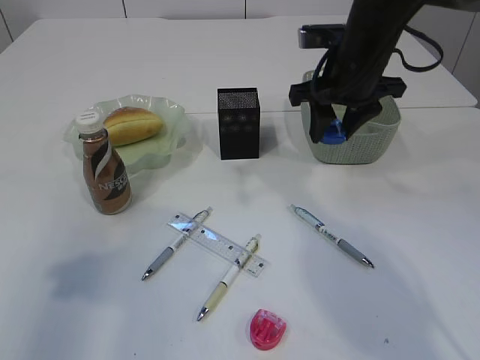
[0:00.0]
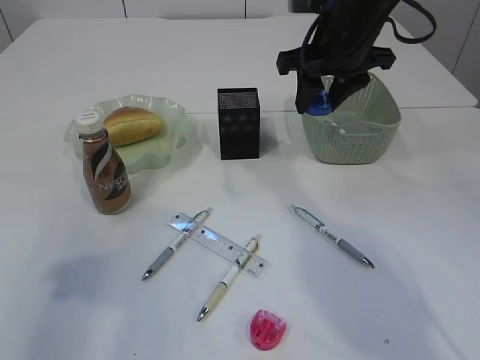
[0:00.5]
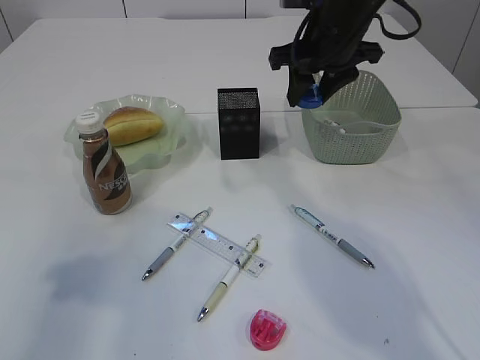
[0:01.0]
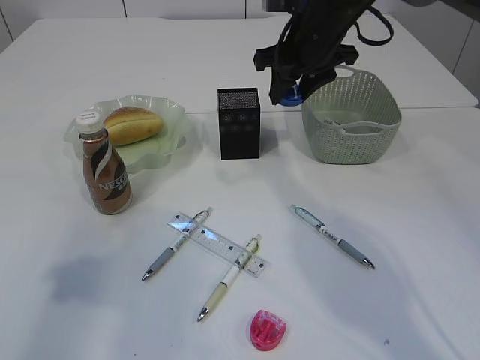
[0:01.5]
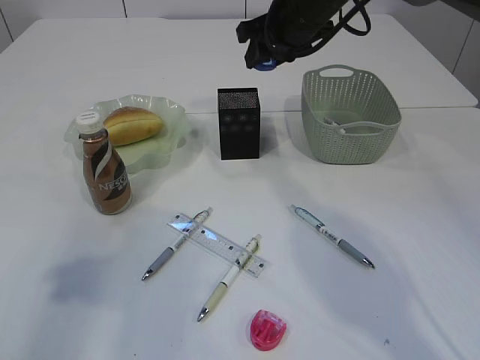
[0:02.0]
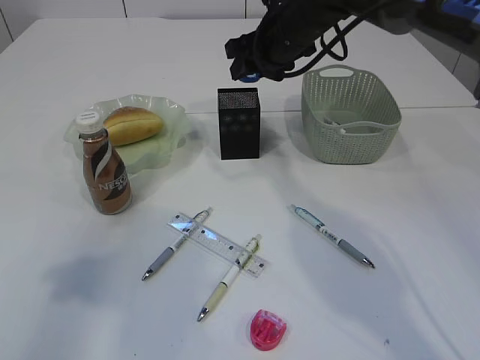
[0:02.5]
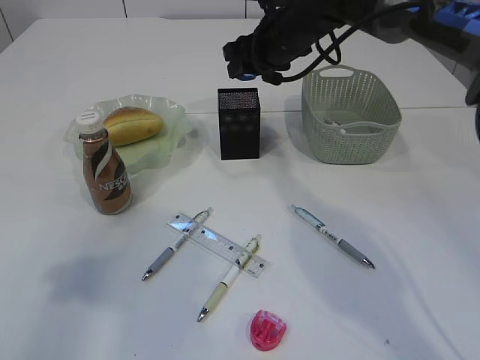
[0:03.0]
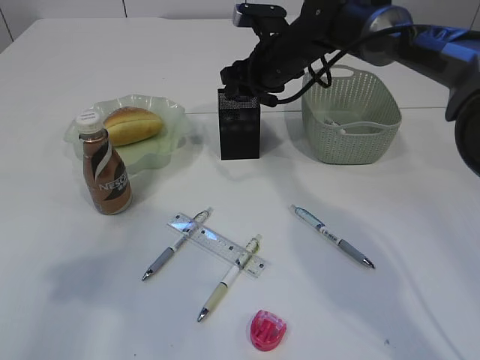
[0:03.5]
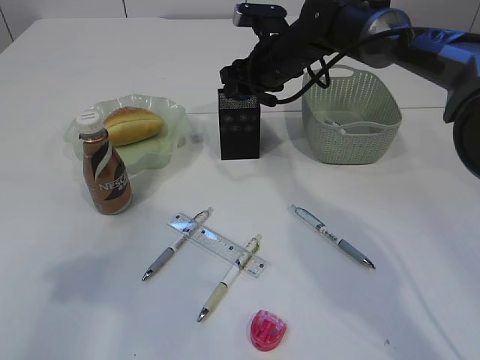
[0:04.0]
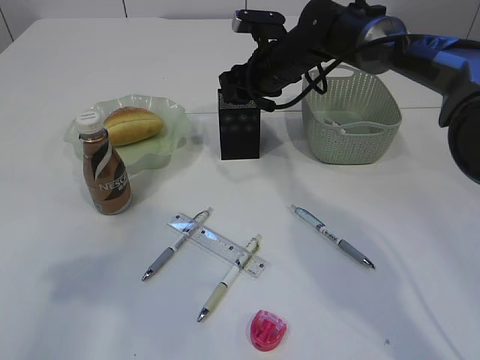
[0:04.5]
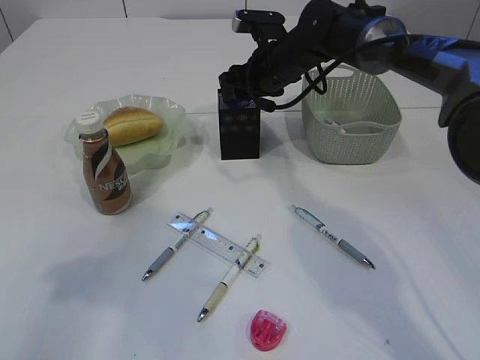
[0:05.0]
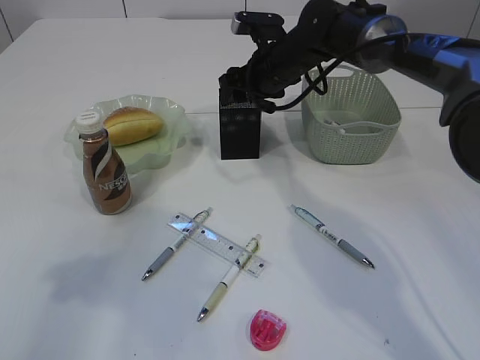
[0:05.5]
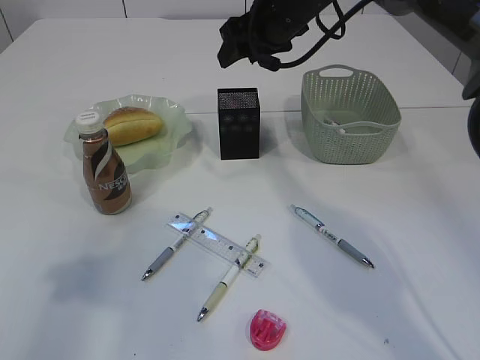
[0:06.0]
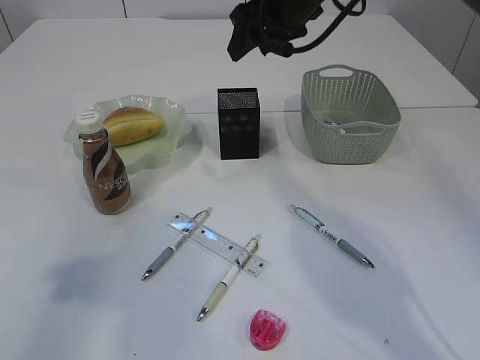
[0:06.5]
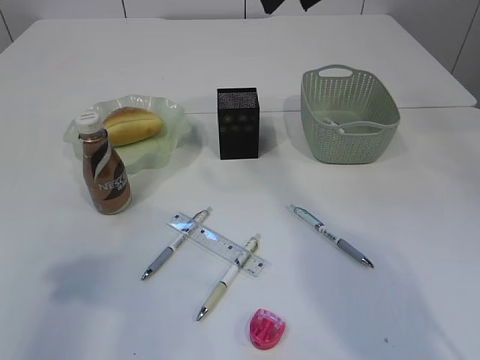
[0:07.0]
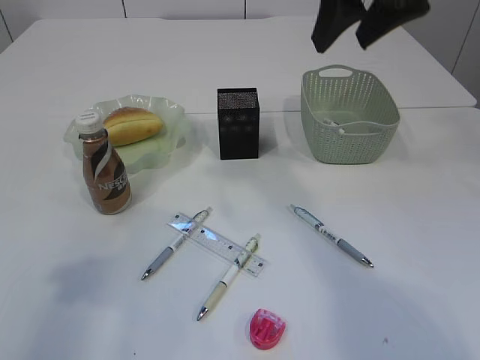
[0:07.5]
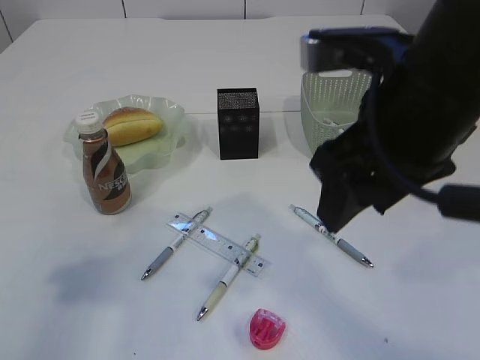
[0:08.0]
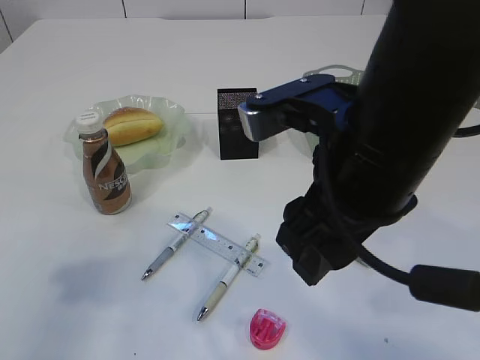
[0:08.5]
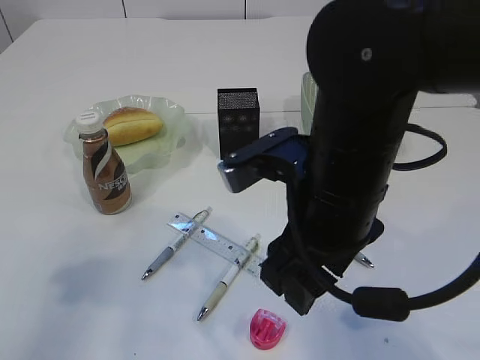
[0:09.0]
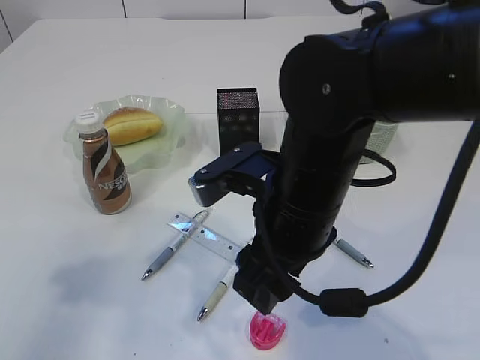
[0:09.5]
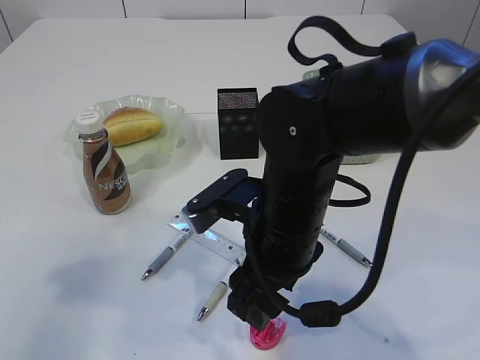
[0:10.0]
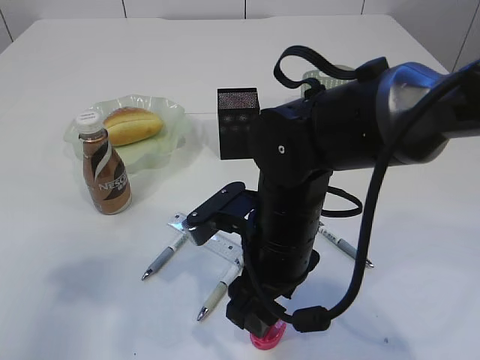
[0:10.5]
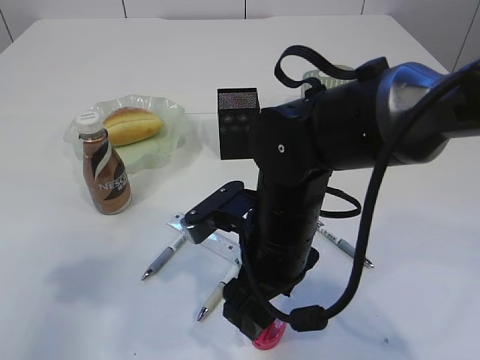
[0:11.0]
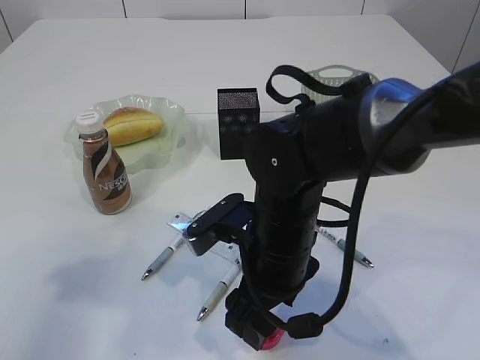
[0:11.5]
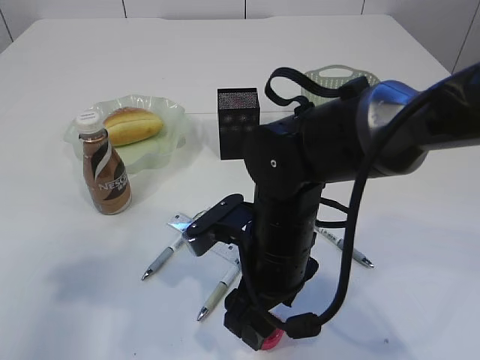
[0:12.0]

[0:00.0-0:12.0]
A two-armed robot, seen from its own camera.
Step, 0:01.5 to 0:06.5: Pick up the red pencil sharpener.
0:00.0 to 0:02.0: The right gripper shifts roughly 5 cm forward.
0:02.0 to 0:04.0: The right gripper is displaced downward by some 10 cm.
0:04.0 to 0:06.0: The right gripper goes about 5 cm upward.
0:06.0 to 0:08.0: The right gripper travels backward by about 25 cm.
0:08.0 to 0:10.0: The right gripper is displaced downward and to the left by roughly 15 cm.
0:10.0 to 0:12.0: There are only small adjustments of the grippers.

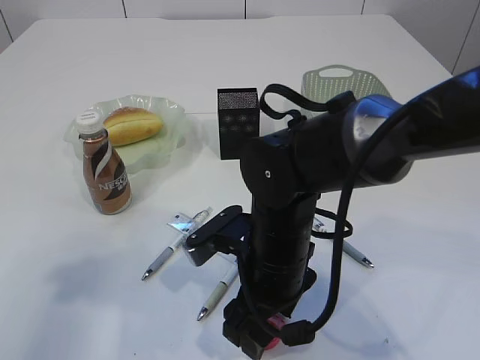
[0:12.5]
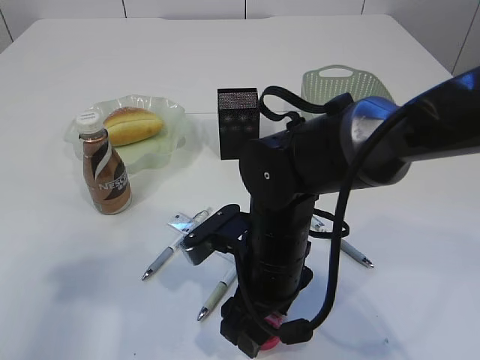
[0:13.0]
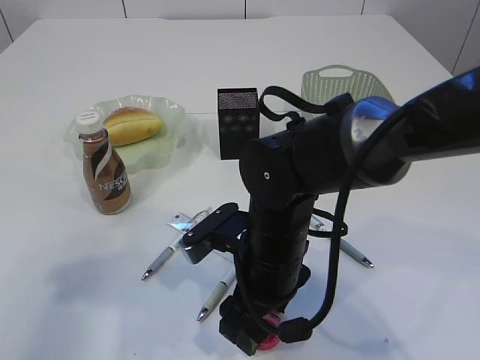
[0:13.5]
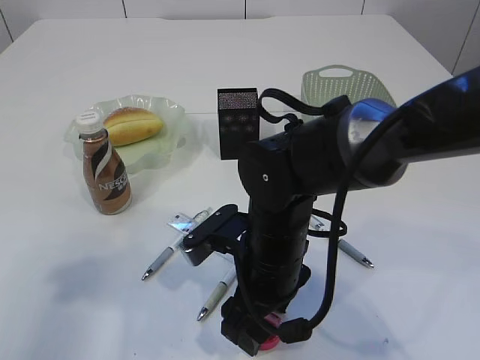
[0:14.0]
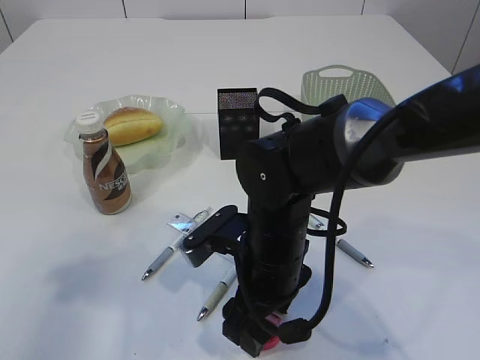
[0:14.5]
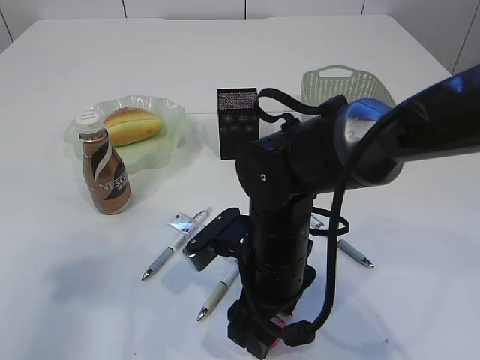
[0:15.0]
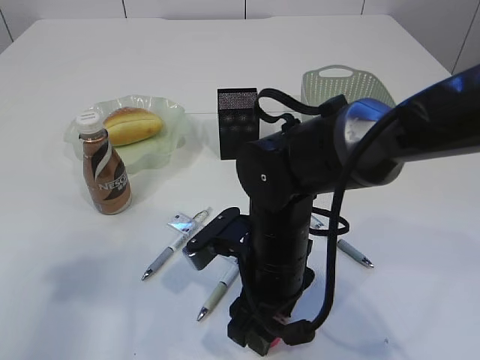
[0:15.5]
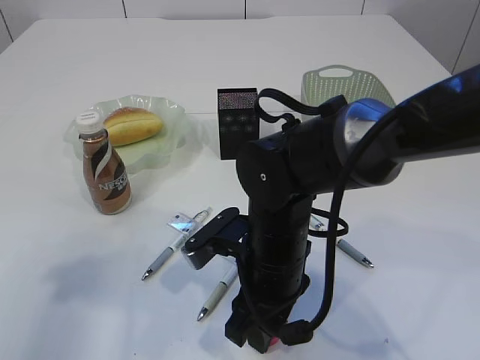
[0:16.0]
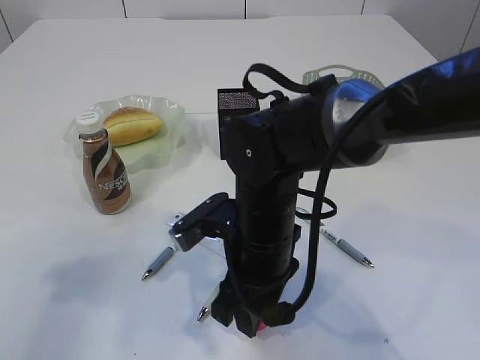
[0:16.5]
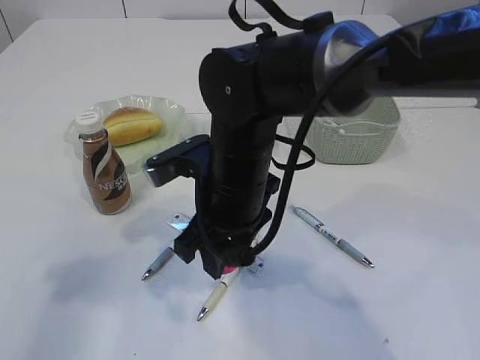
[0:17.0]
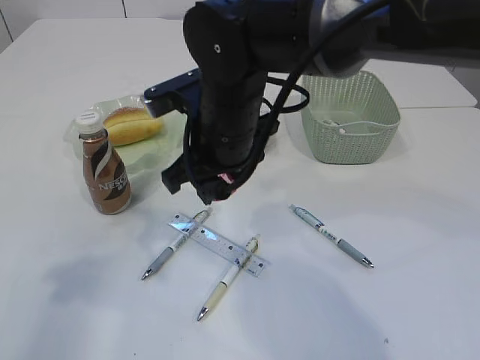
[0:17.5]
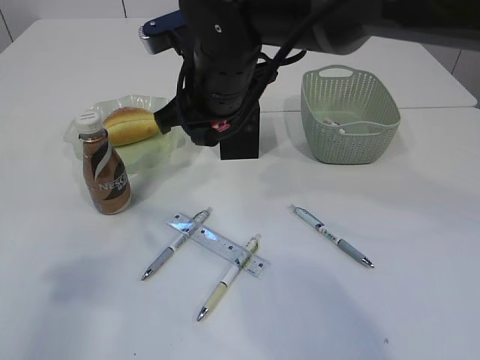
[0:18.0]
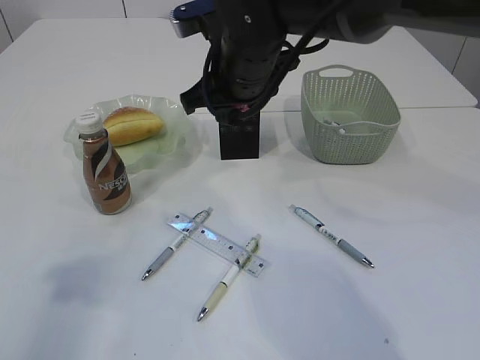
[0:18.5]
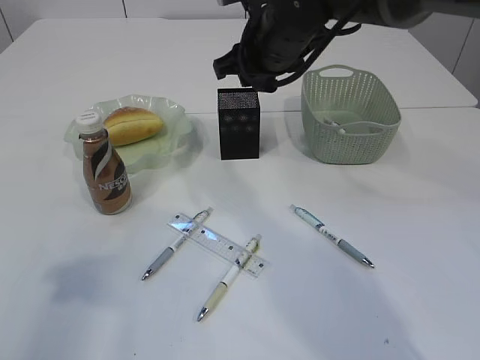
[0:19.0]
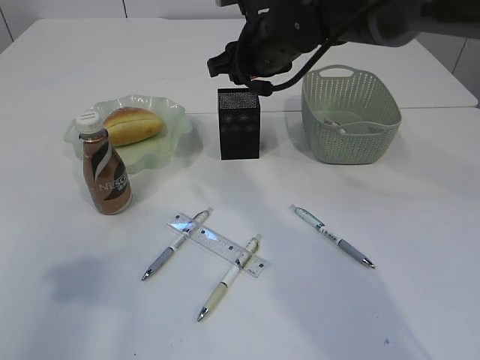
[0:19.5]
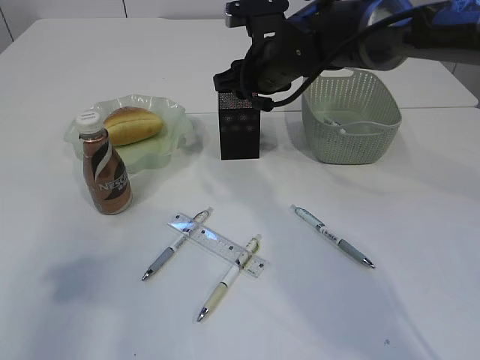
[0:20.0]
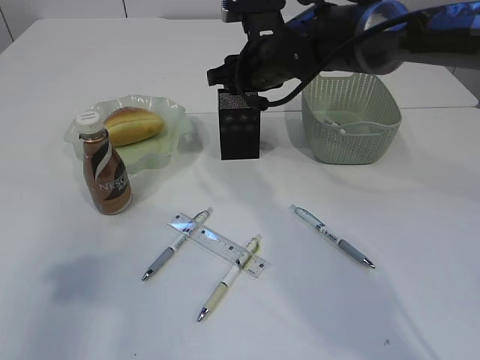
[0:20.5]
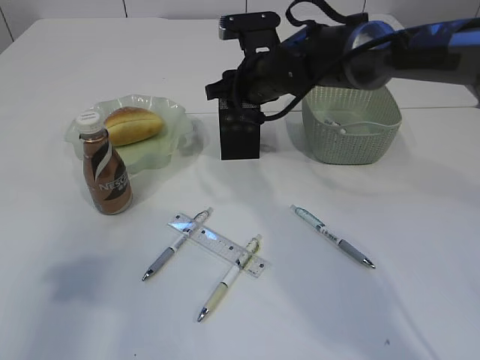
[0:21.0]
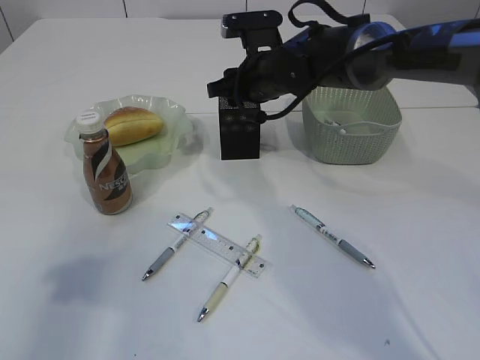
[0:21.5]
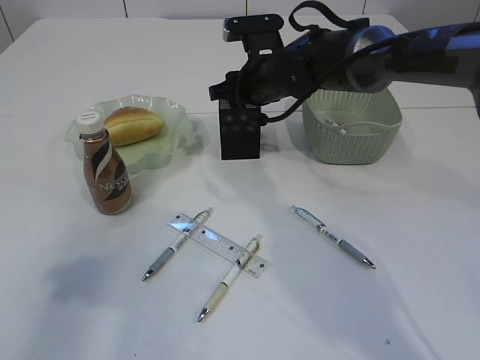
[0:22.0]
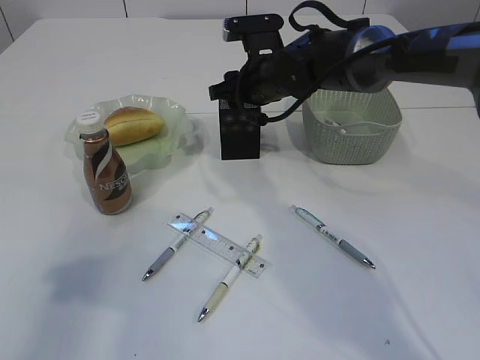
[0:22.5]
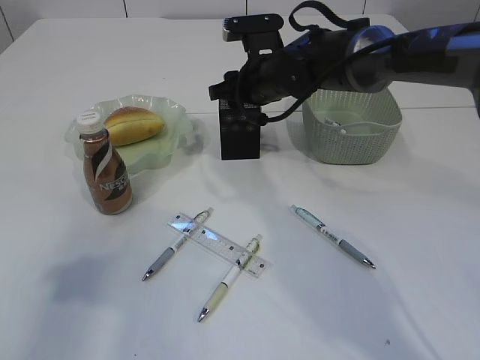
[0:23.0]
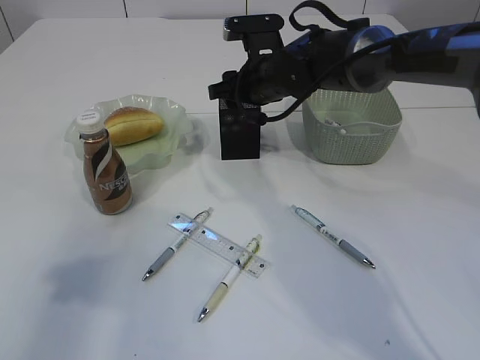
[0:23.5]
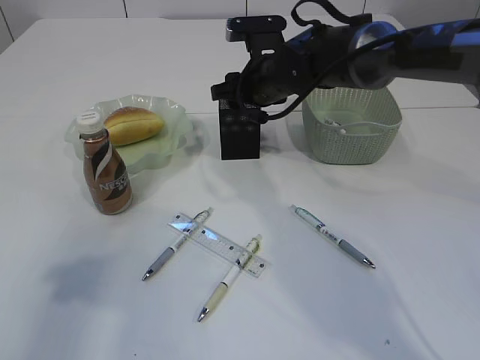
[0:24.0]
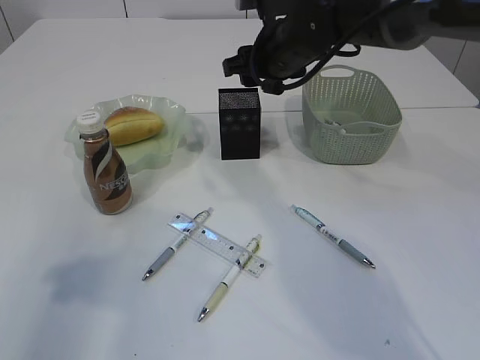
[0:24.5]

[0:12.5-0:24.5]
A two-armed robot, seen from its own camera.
Step, 0:12.5 to 0:16.5: Pick up the blue pencil sharpener.
0:12.5 to 0:14.5: Neither gripper changes place.
0:14.5 to 0:16.5: The right gripper closes.
0:16.5 to 0:18.5: The right gripper moves upward and forward, roughly 15 cm.
0:18.5 to 0:20.5: The right gripper heads forward, covering approximately 10 cm.
0:20.5 to 0:22.5: The grippers make only small movements.
0:22.5 to 0:24.5: The right gripper heads upward, covering some 5 cm.

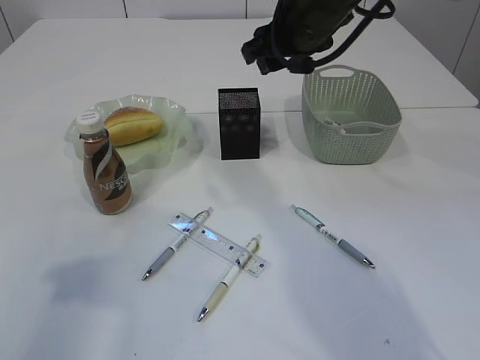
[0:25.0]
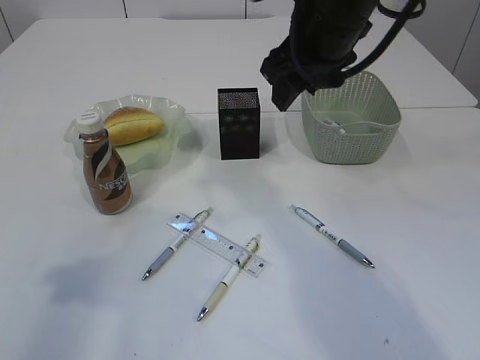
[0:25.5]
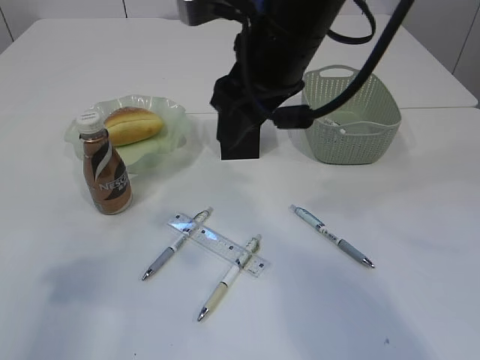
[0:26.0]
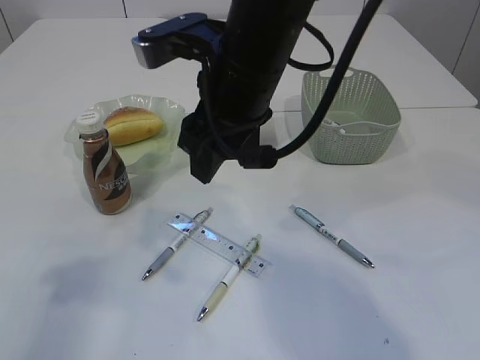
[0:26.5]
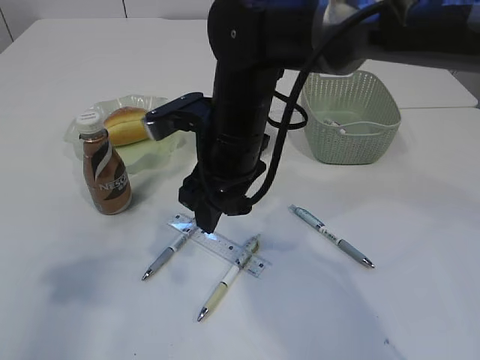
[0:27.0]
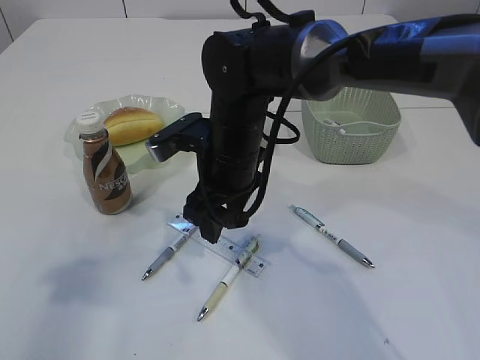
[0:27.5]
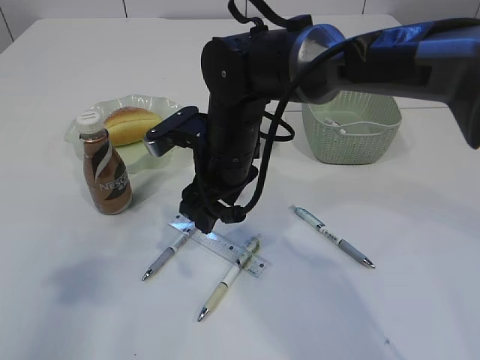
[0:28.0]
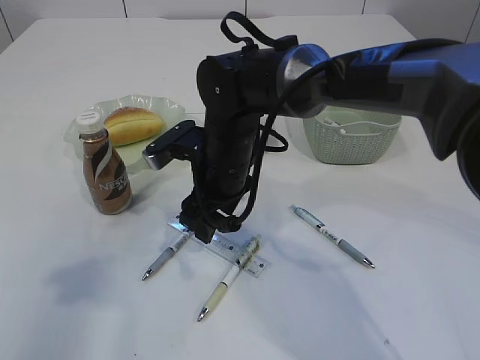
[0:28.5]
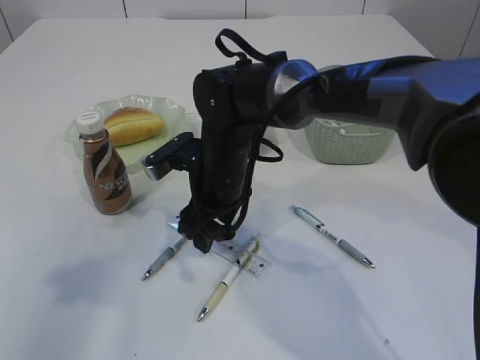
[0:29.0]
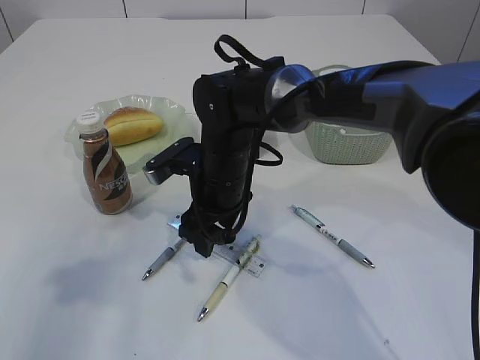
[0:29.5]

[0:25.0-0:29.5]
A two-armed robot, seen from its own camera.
0:25.0 to 0:27.0: The right gripper is displaced to the left, downward and backward by some 15 cm.
0:27.0 to 0:29.5: The right gripper is displaced downward by roughly 10 cm.
